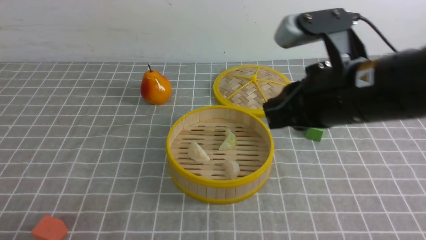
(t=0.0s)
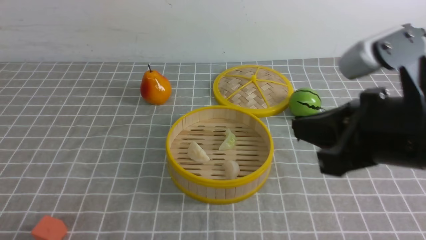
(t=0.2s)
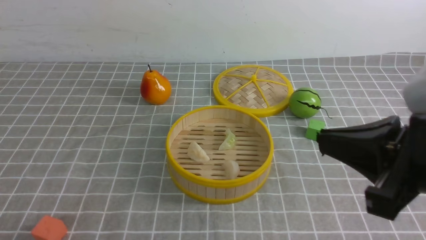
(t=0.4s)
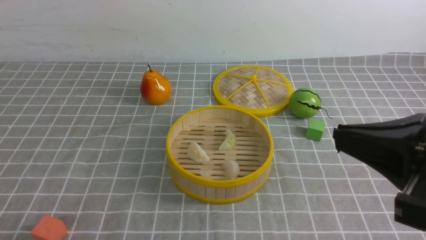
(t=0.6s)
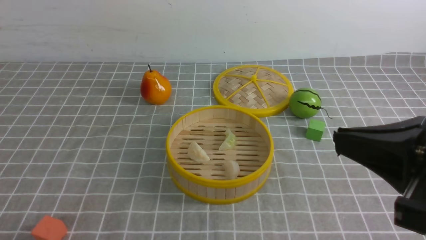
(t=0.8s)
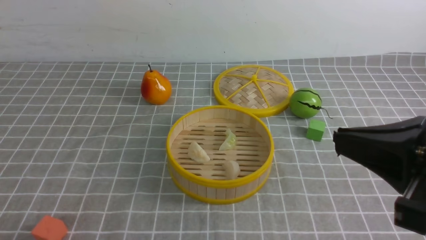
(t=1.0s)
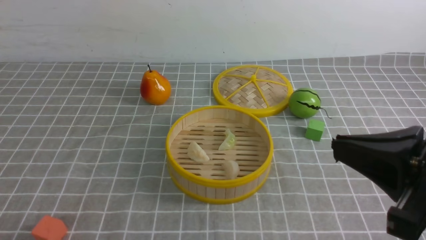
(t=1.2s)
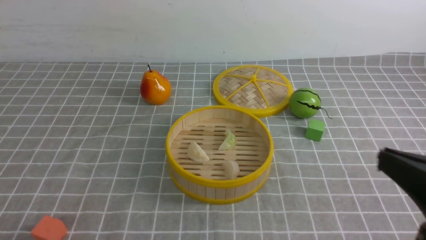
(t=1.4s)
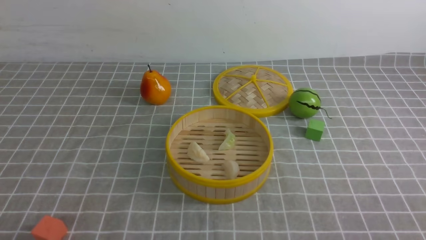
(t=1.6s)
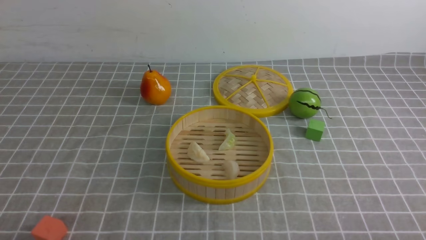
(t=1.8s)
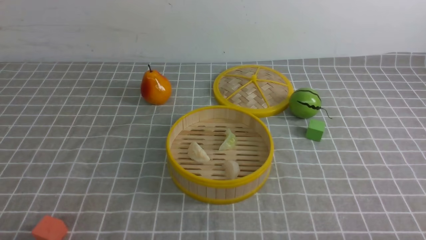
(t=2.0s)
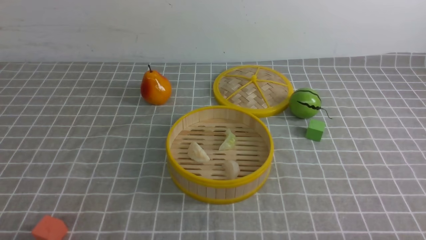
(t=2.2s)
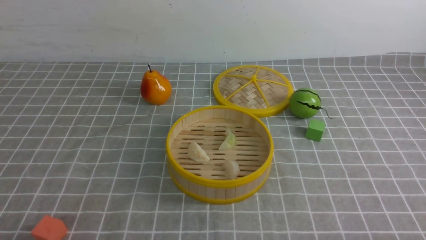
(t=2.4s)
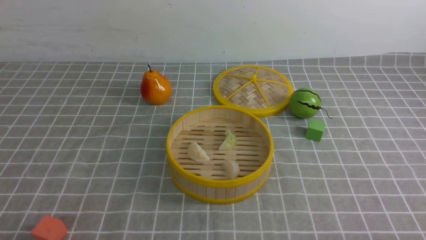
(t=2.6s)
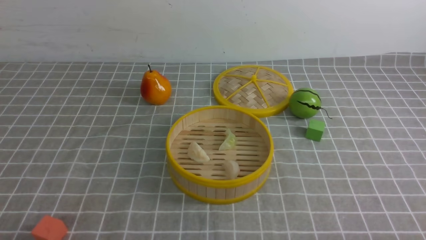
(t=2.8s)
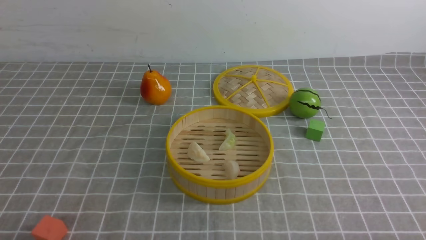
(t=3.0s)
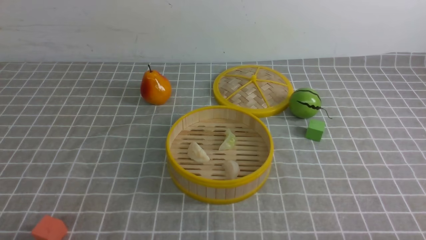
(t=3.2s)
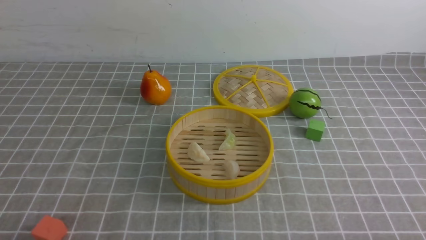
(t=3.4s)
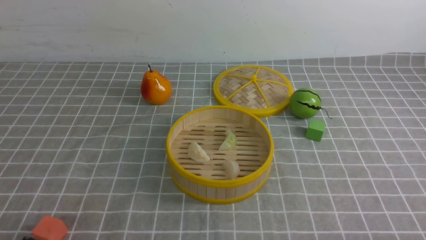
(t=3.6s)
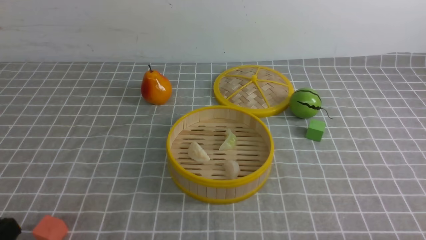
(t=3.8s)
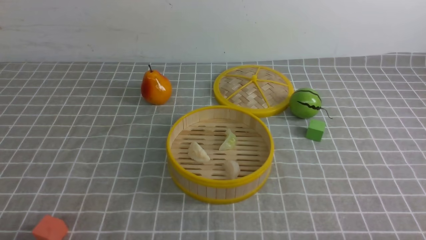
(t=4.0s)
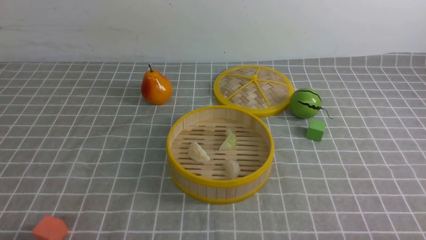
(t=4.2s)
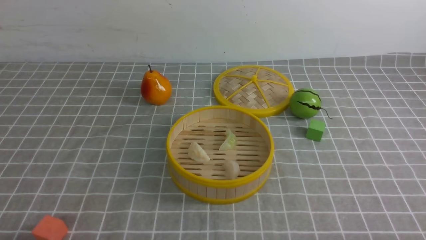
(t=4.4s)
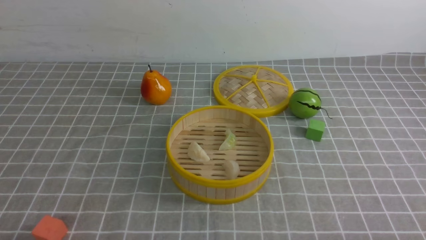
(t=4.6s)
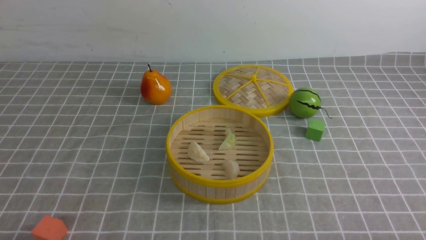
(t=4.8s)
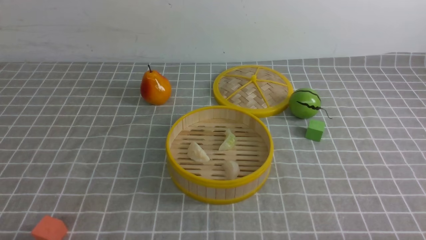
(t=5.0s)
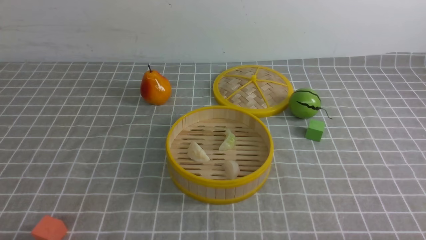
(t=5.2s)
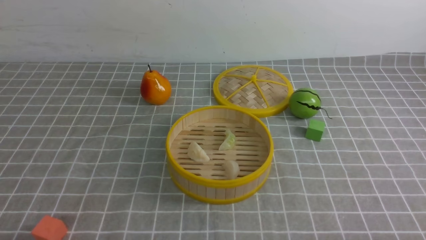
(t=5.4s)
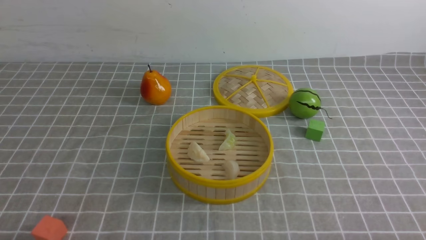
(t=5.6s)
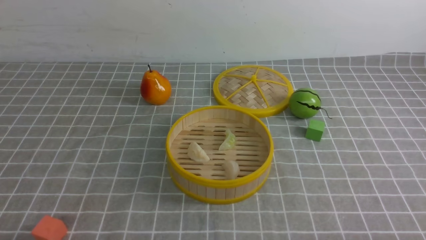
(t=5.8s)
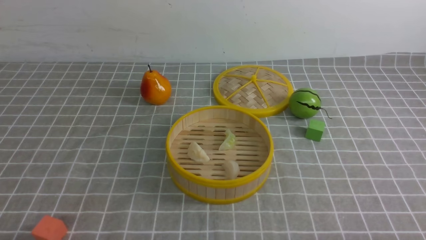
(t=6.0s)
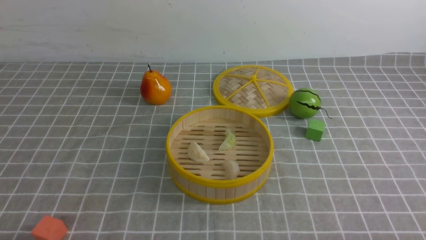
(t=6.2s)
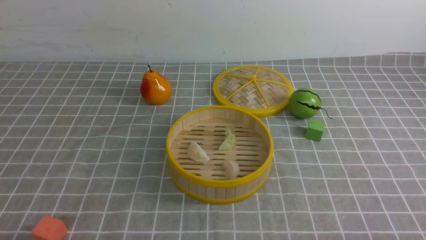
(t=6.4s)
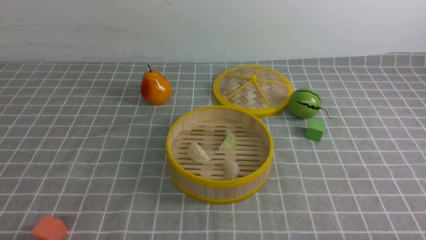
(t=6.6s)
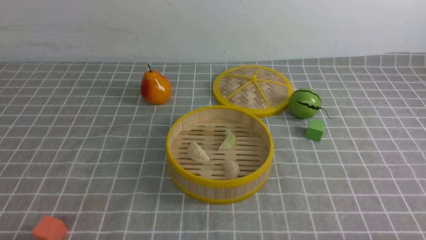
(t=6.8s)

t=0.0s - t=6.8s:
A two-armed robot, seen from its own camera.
Task of the whole recording: put the dumplings into the steamer on the table with the grey tablecloth.
t=0.0s - t=1.4s: The left gripper travels downward by some 5 cm, while the right gripper is displaced backward, to the right and downward by some 20 cm.
t=1.4s - t=2.8s: The right gripper travels downward and to the right by roughly 15 cm.
t=5.4s - t=6.8s: Neither gripper changes place.
